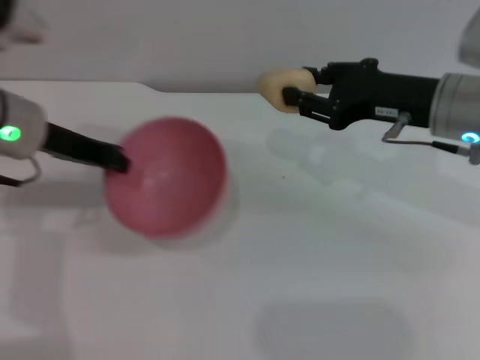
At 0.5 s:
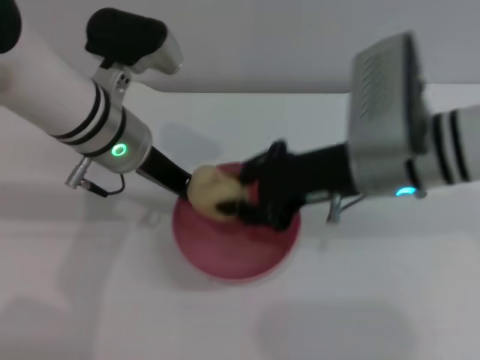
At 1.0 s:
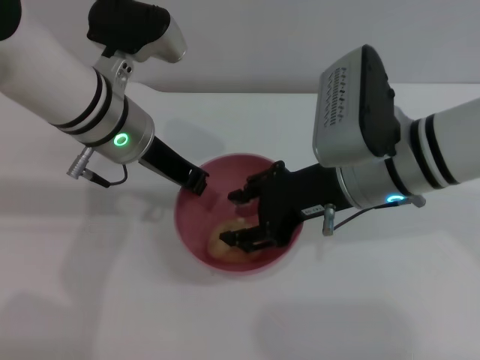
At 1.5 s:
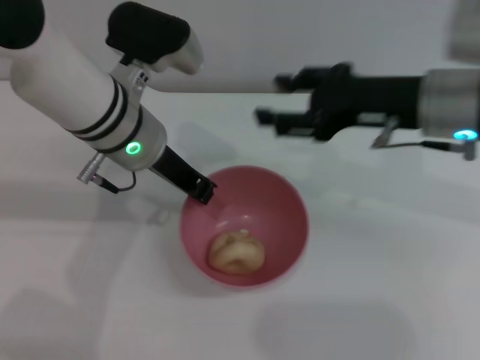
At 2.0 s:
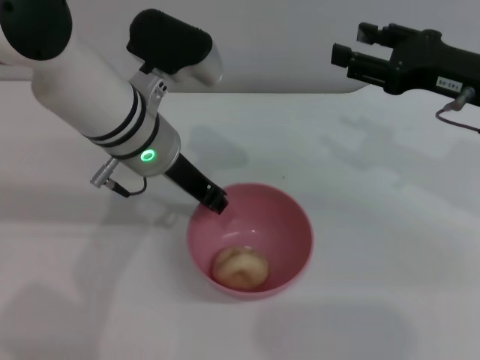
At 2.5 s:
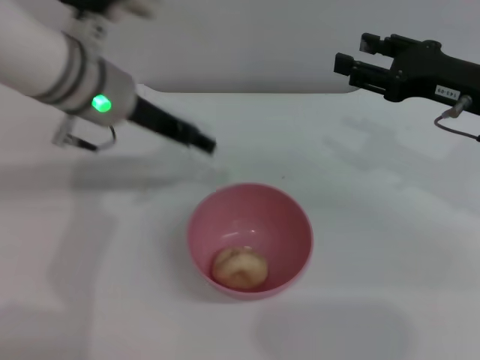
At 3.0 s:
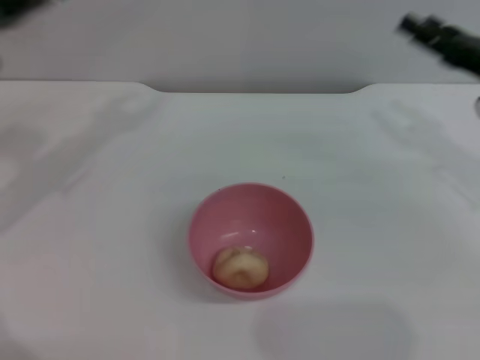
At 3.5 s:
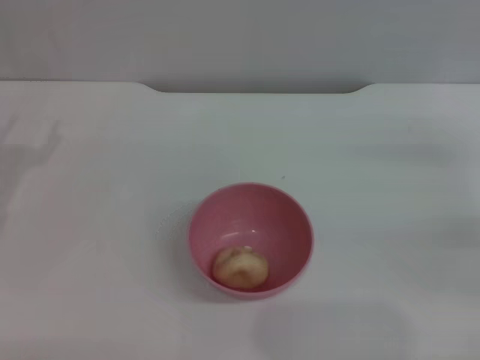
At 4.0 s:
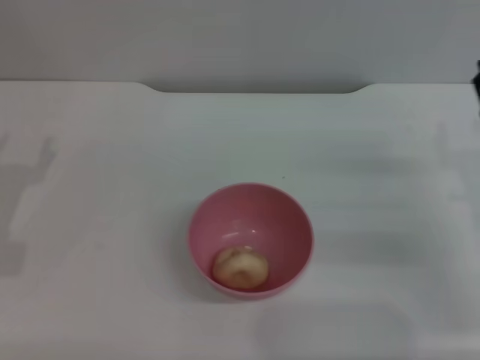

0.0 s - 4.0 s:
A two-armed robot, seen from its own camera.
Task of the whole recording: put the egg yolk pastry into the pink bowl and pour it out repeatedly.
Step, 0.0 s - 1.0 s: Place the egg yolk pastry into the bowl.
Step, 1.5 s - 2.0 s: Place the bowl on the table.
0.0 s - 2.0 s: The right gripper opens, while the left gripper moves to the right, roughly 10 cm.
2.0 s - 4.0 s: The right gripper shifts approximately 15 cm downward and backward. Meanwhile the left gripper travels to the left, backward and downward by approximately 25 cm, and opens.
